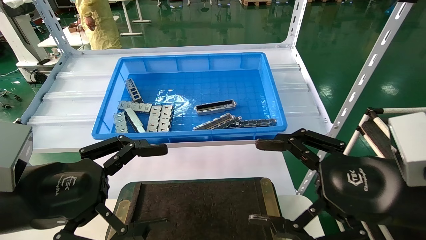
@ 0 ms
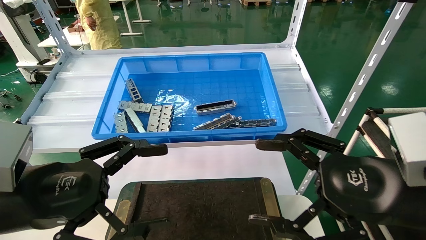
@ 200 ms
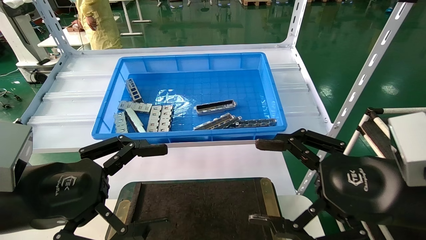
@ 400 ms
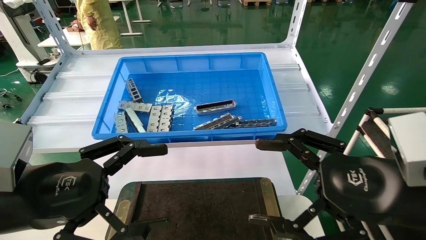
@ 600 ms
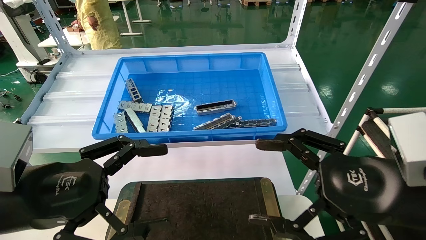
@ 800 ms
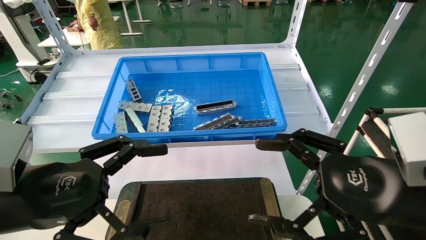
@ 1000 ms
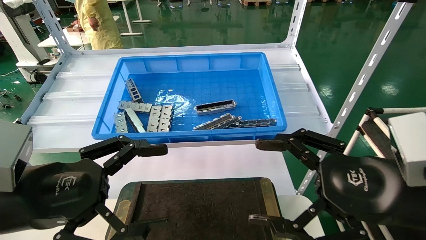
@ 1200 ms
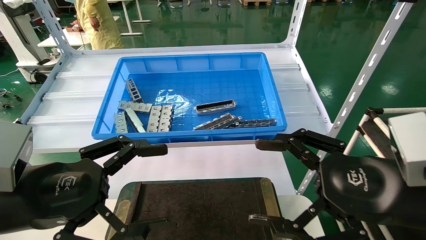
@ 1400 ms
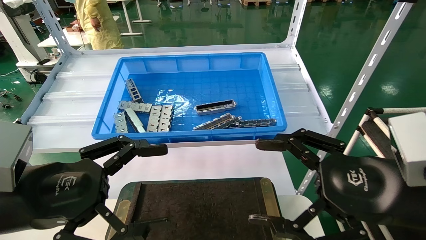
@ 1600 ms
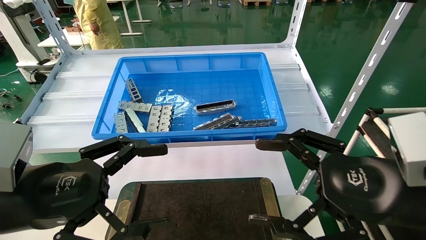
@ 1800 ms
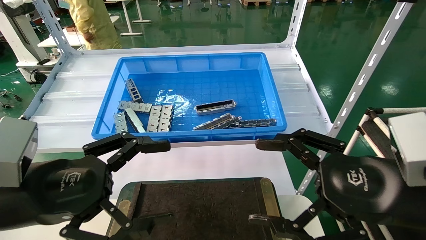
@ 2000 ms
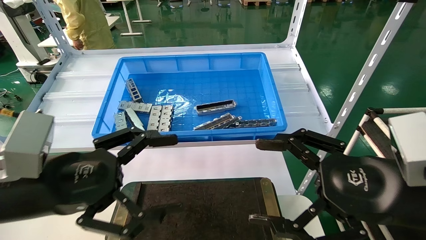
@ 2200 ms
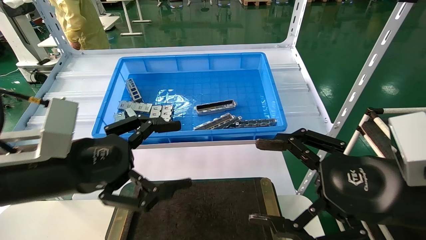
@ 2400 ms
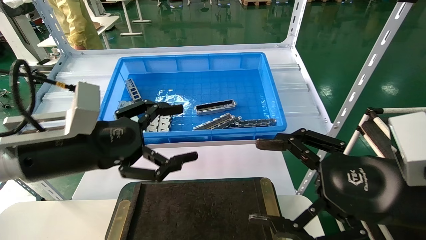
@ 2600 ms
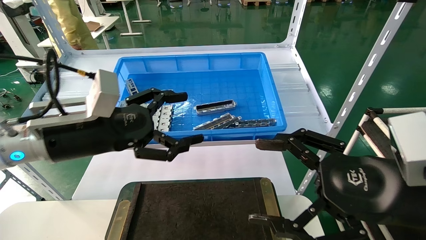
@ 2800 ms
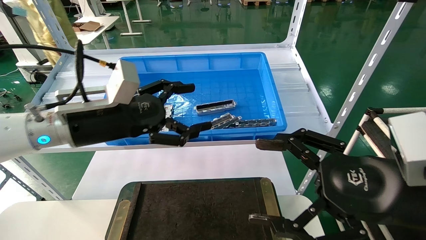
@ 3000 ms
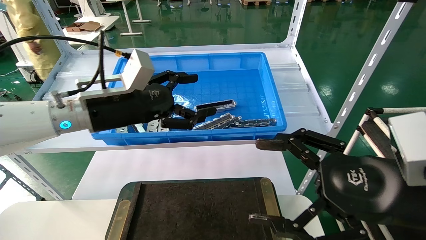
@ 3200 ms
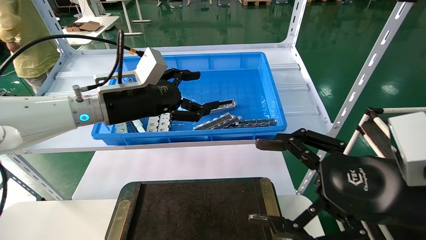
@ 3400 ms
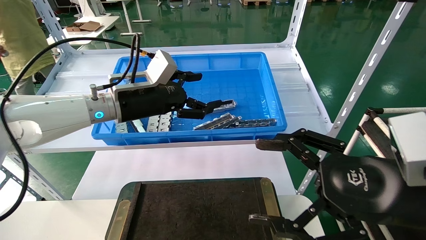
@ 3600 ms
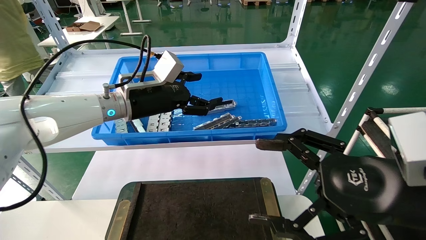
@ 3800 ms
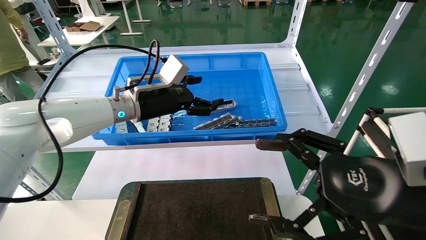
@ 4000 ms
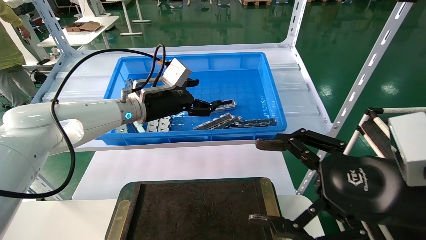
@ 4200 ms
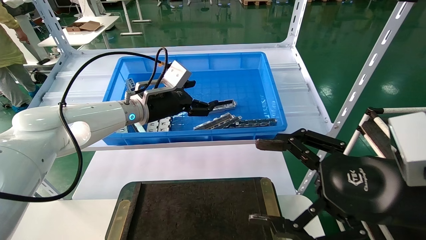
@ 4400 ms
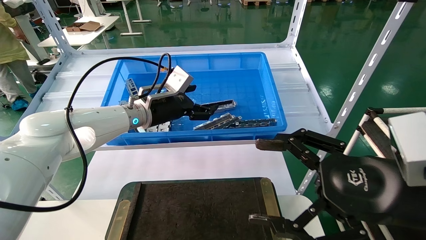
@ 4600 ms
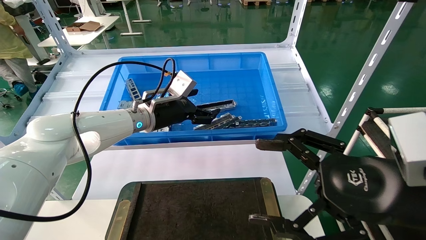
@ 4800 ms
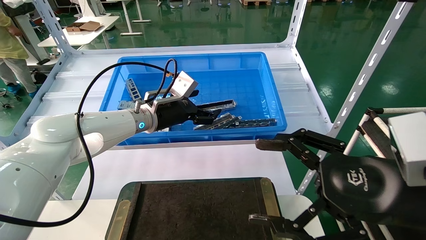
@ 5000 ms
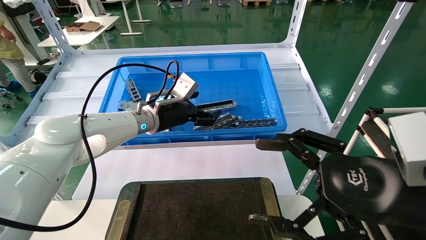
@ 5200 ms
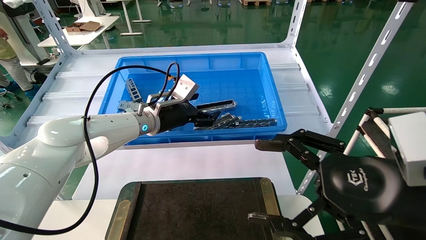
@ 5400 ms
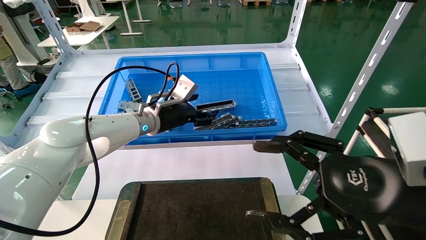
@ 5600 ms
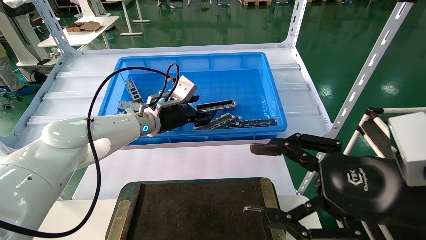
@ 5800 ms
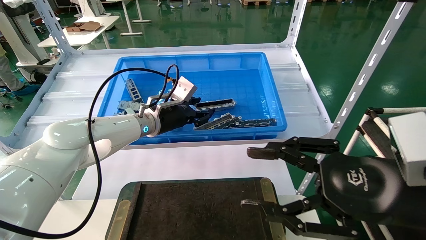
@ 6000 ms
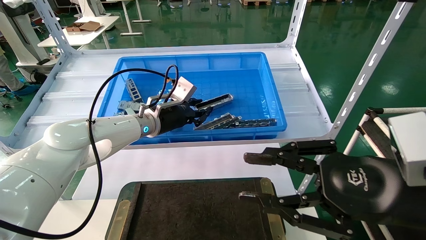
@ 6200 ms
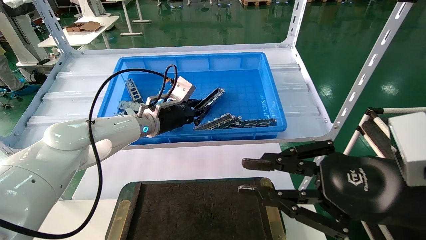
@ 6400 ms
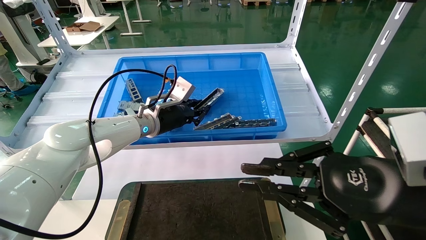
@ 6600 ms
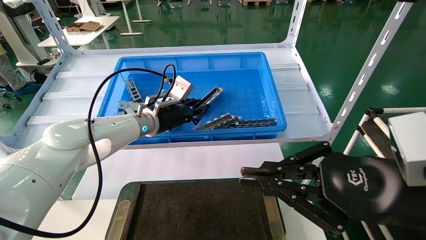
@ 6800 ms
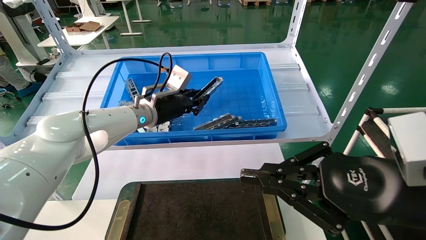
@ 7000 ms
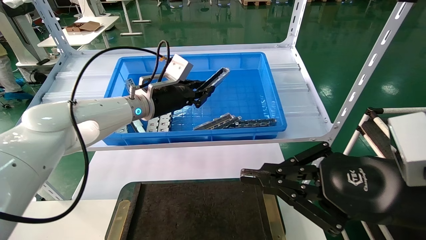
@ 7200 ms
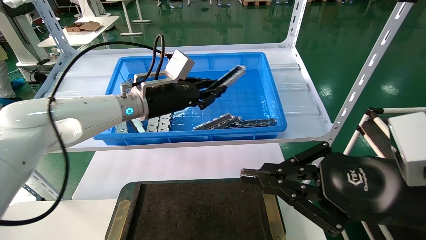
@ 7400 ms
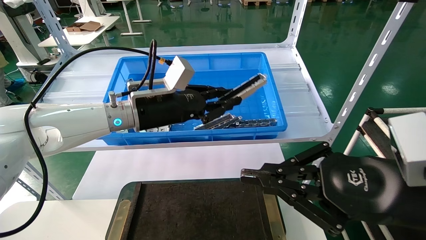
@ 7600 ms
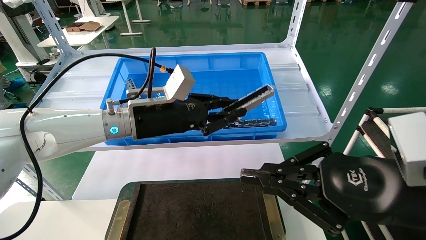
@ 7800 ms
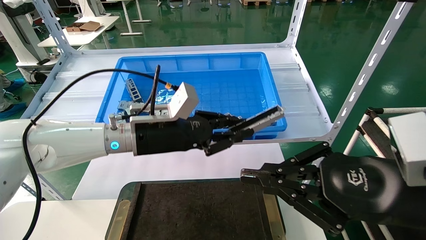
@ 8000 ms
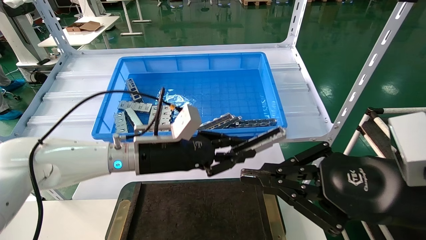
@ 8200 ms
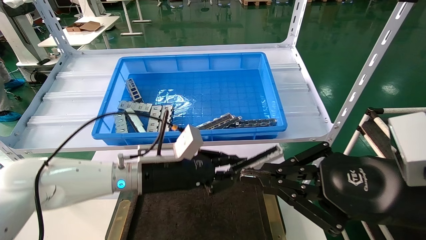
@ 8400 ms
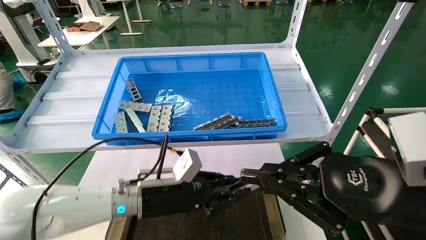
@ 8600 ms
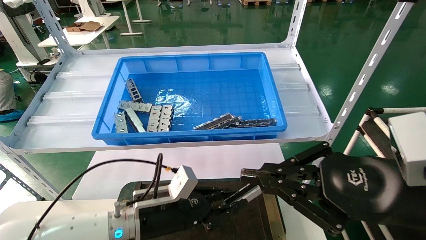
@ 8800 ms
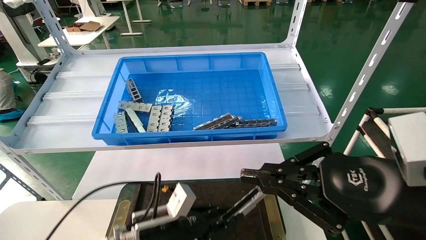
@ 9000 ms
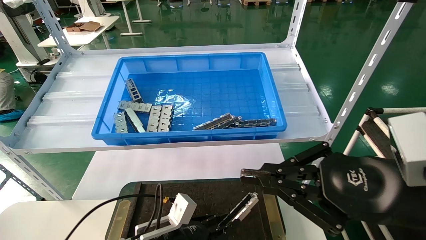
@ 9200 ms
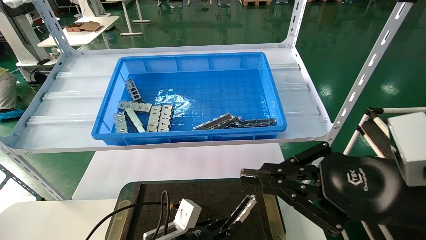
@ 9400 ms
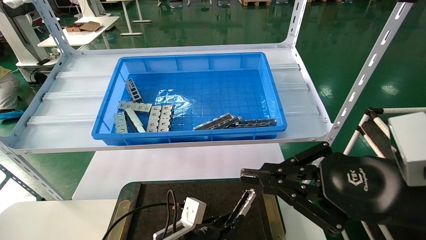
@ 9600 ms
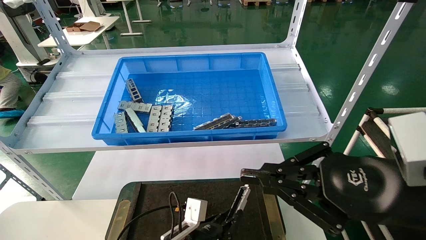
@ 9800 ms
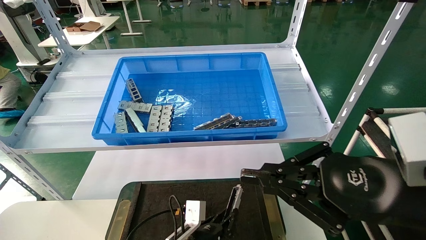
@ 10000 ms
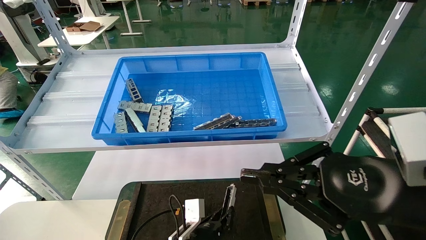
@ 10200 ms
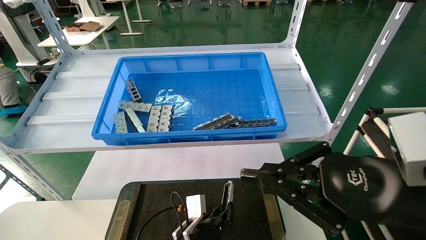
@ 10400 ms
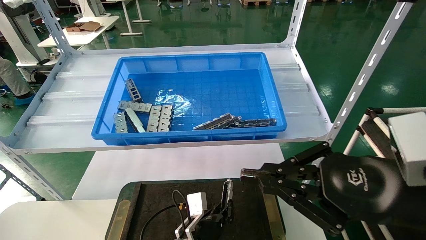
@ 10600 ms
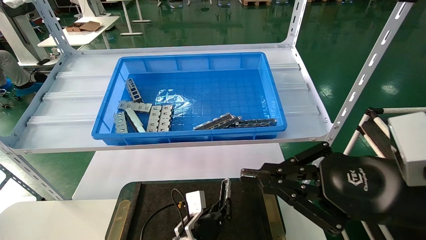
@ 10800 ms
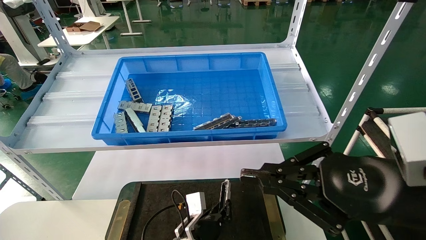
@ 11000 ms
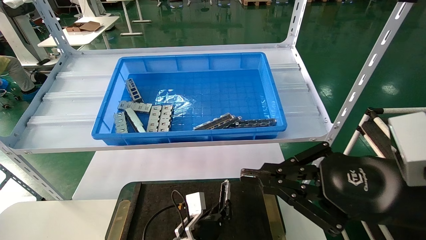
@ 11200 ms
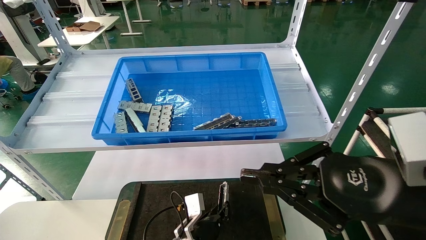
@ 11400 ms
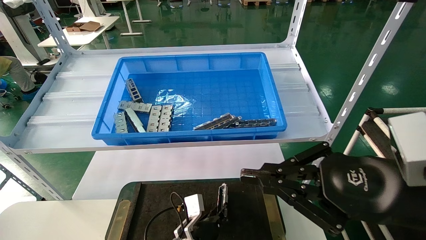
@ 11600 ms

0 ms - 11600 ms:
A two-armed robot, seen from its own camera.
Task of the whole recording: Grasp the part with one hand and place it on the black container.
Step, 2000 ms - 6200 ms: Pick up the front USB bracket from the feeding area.
0 ms - 1400 ms: The two grippers keep their place.
1400 ms - 2800 ms: The left gripper moves forward, some 10 cm.
2800 ms - 4400 ms: The left gripper heads forward and to the right, covering about 20 cm.
4400 ms - 5800 ms: The grippers stay close to where they were, moving slightly.
5800 ms - 7200 ms: The left gripper closes. Meanwhile the right gripper closes.
7200 ms - 8800 ms: The left gripper moves downward and backward, roughly 25 cm.
8800 ms - 10200 ms: The left gripper heads downward and to the right, covering some 15 cm.
10200 ms - 11600 ms: The grippers make only small movements.

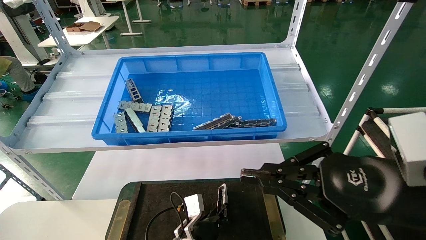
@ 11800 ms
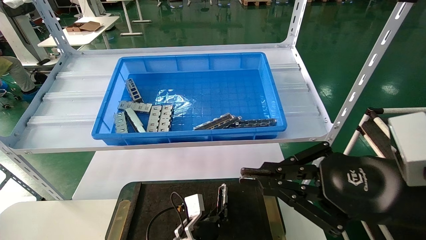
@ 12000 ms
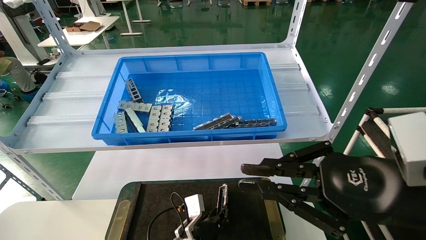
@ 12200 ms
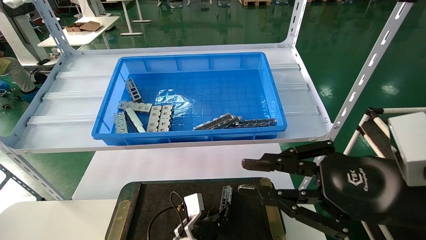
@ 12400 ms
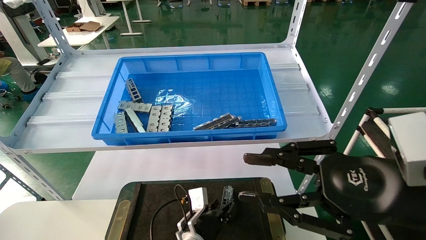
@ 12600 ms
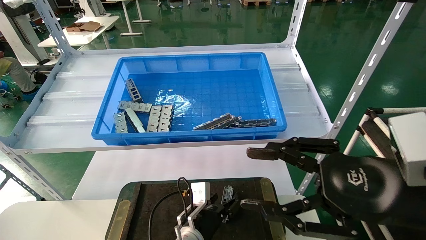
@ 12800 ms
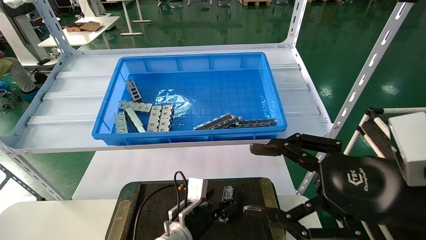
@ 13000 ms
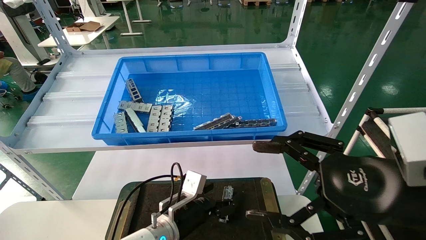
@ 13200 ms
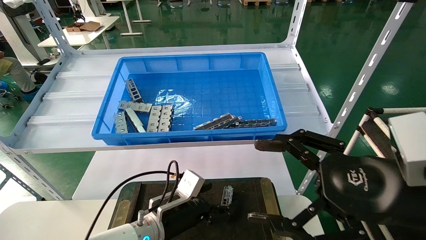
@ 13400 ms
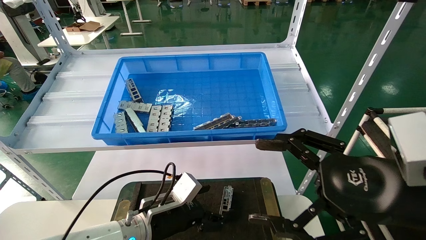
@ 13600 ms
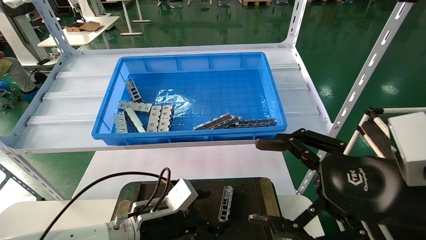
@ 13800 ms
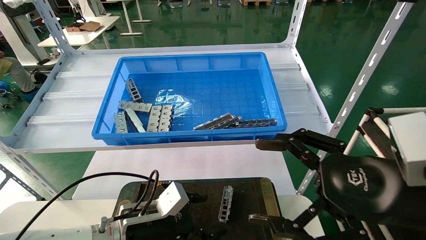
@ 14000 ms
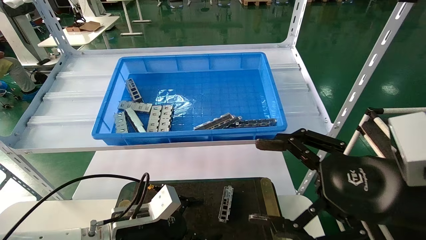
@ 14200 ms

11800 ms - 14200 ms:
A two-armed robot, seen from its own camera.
Task of the whole recording: Grasp the part with one hand and place it on the black container.
11800 ms - 13000 ms: The left gripper goes roughly 5 cm upward, and opens up; the right gripper opens up.
13000 ms - 14200 ms: The left gripper is displaced to the left, upward and backward by approximately 15 cm; the right gripper opens.

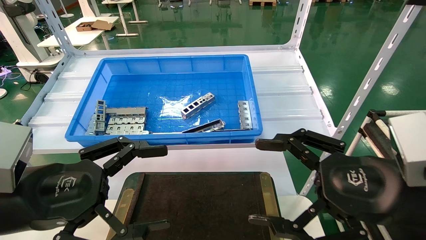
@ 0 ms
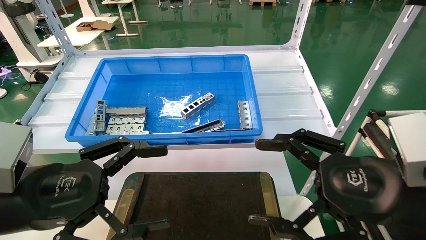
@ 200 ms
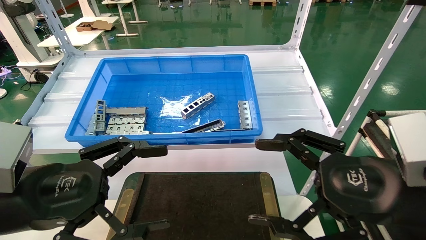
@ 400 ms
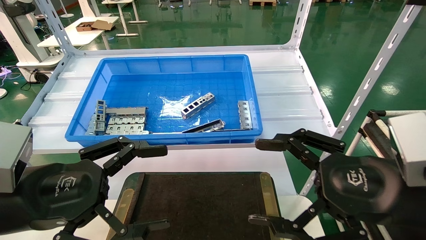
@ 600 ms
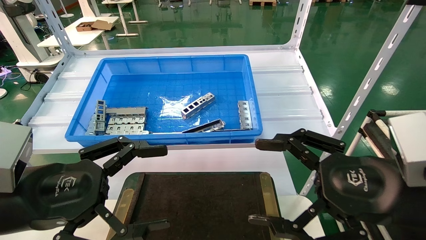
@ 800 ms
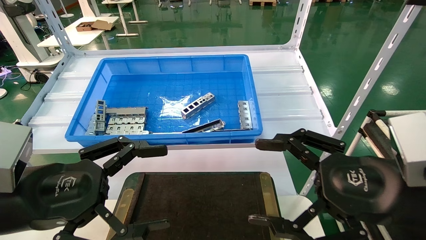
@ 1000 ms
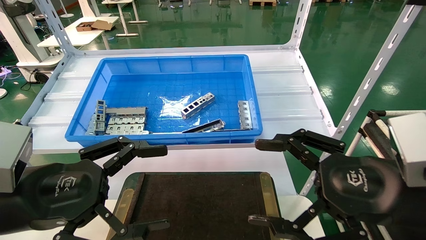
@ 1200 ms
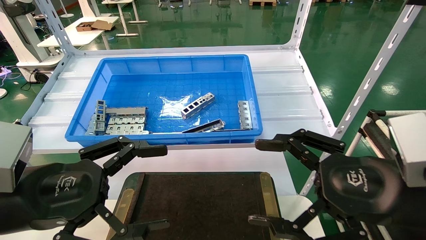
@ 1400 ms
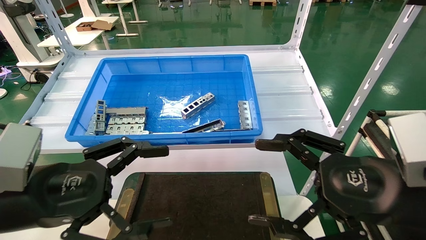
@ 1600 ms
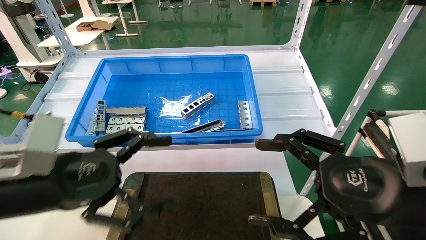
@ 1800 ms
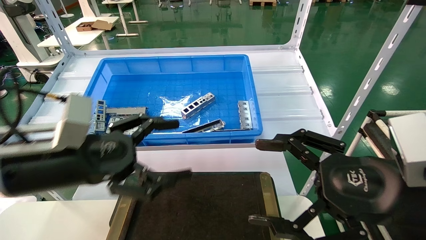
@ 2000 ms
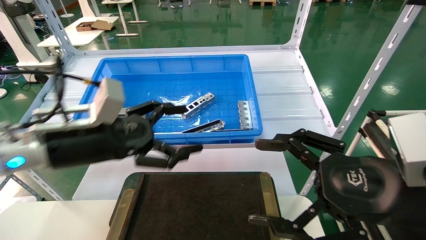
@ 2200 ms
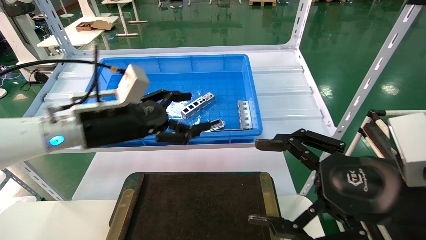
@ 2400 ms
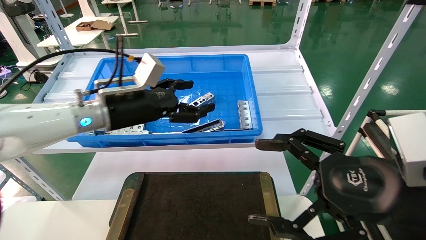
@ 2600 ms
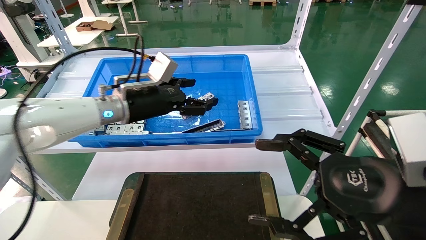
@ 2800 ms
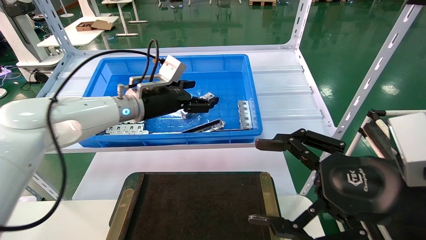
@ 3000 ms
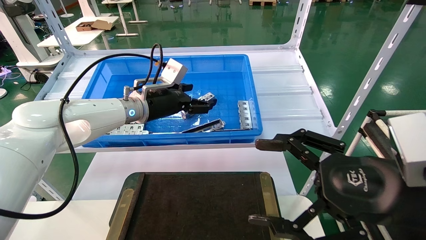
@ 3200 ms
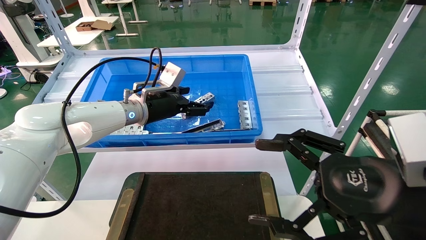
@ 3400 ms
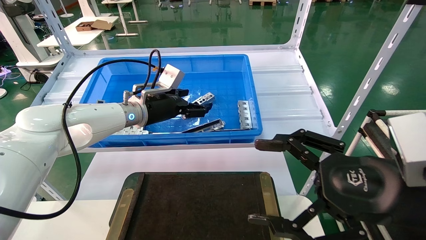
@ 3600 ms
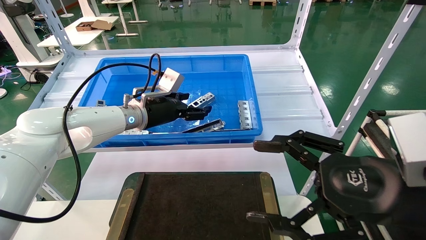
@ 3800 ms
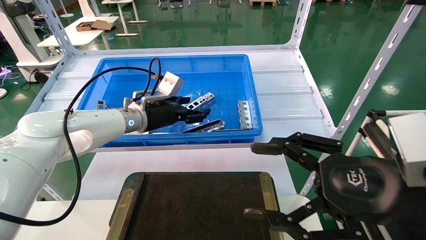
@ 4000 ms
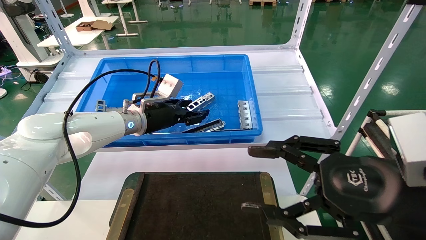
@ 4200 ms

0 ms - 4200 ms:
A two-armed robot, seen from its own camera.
Task of the whole recording: Grasp the part with one hand and place it on the black container.
0 ms - 1400 ms: Both grippers stay put.
1400 ms - 2800 ms: The left gripper shifts roughly 25 cm forward.
2800 ms - 4200 ms: The left gripper changes place by roughly 5 cm.
